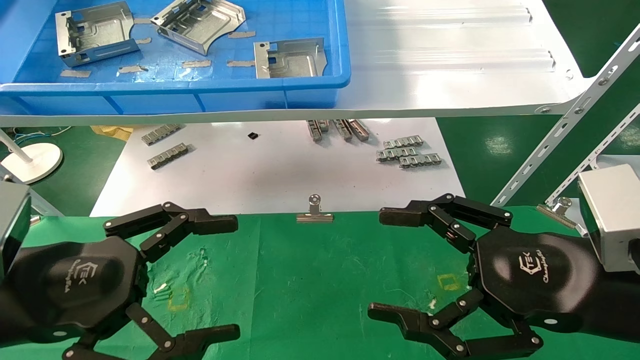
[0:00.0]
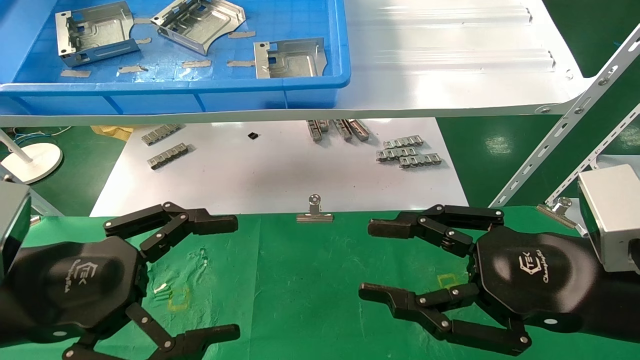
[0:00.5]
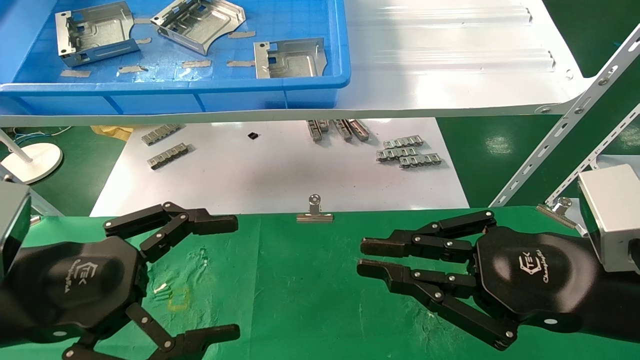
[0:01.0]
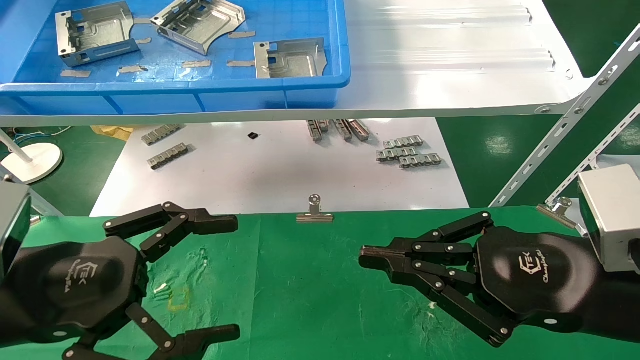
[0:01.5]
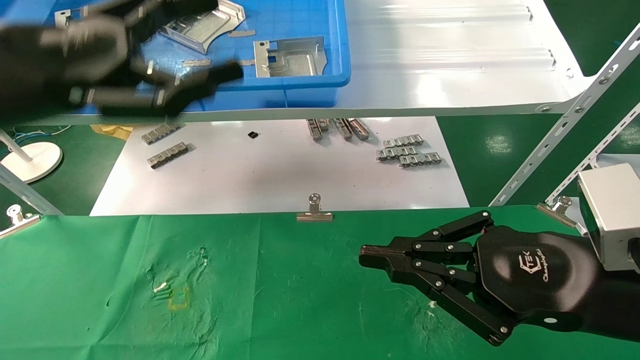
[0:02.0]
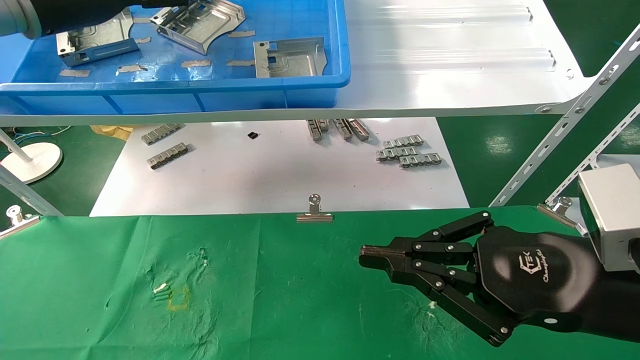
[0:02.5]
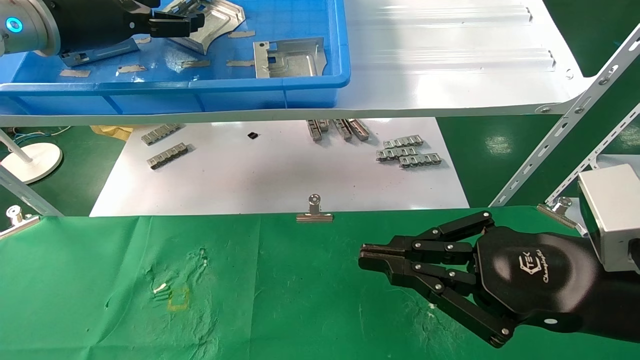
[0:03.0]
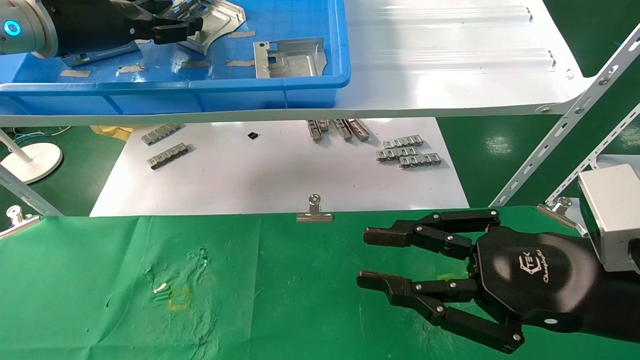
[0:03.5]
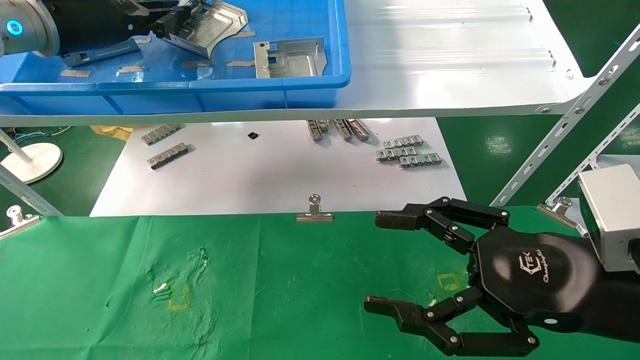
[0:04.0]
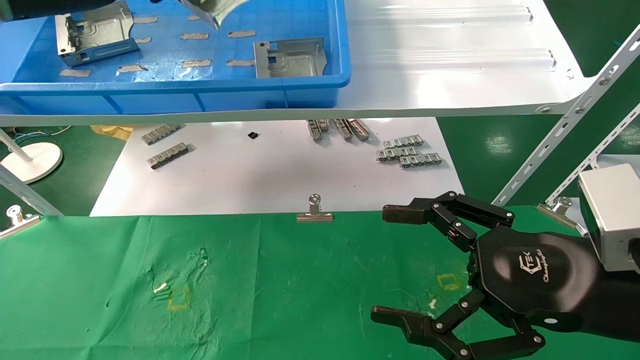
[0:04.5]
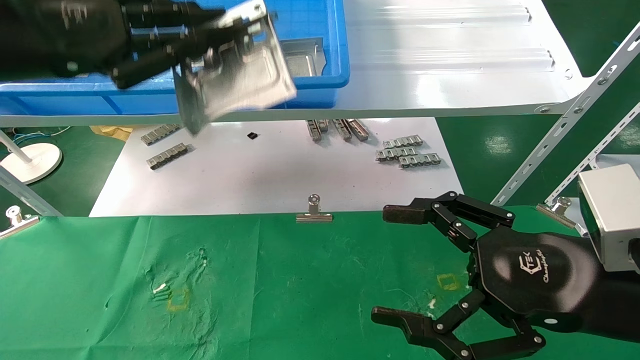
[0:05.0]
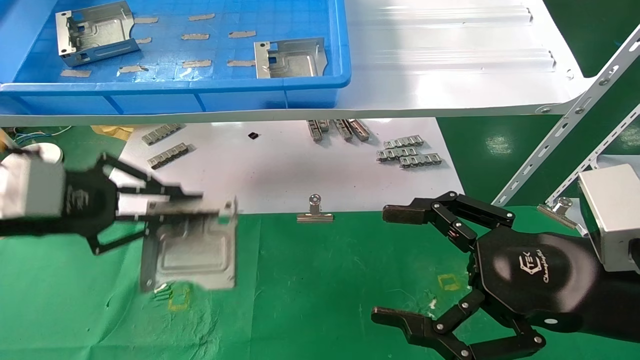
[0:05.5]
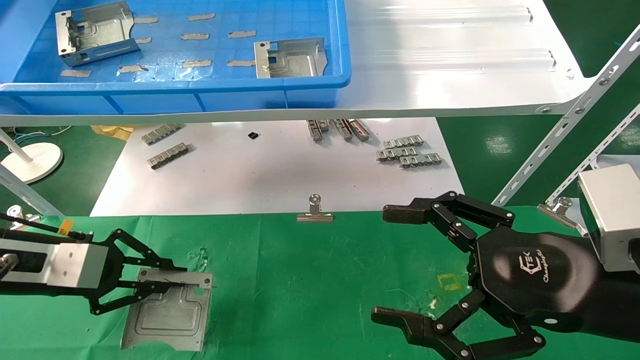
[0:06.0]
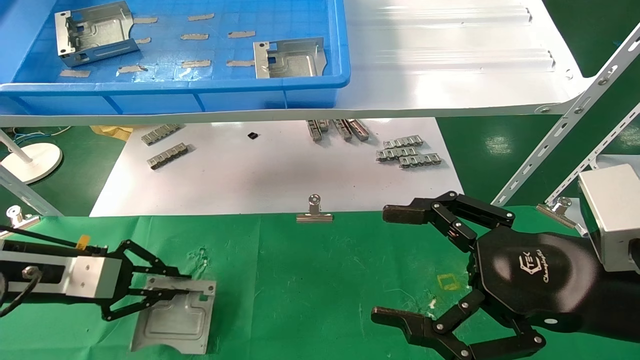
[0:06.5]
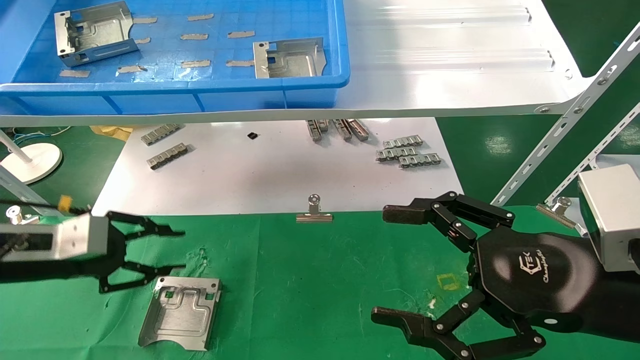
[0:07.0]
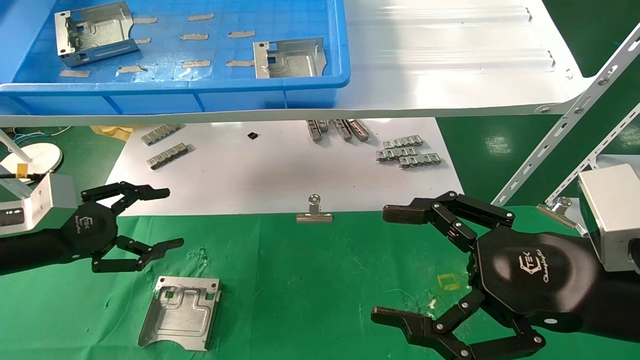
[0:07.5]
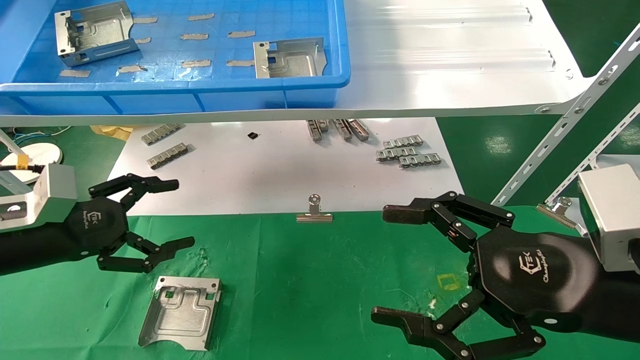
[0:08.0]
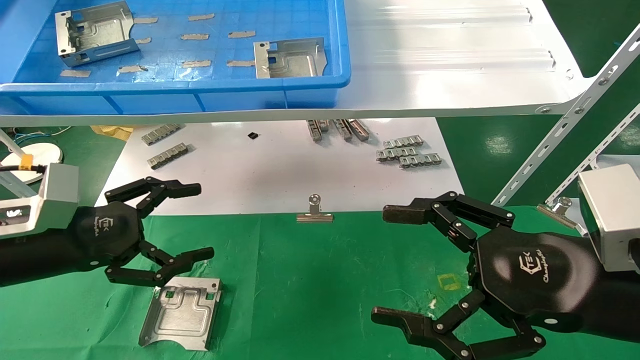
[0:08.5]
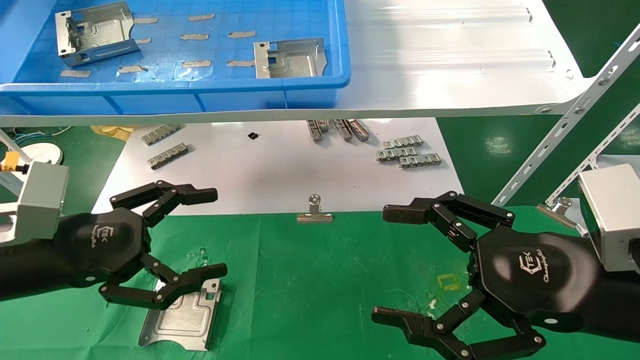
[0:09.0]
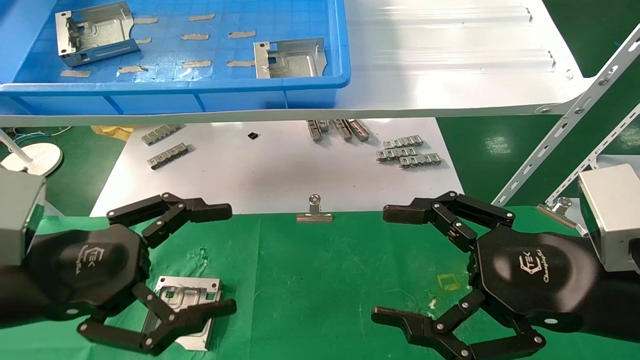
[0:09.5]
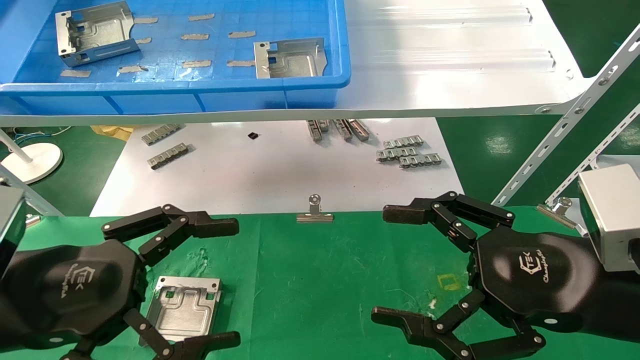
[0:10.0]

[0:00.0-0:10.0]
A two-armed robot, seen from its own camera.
Task of the whole recording: use the mechanical arm to pick up the parts and place them on the table.
Step, 0:01.5 to 0:04.5: Pick up the hard drive bracket from the feeding area.
Step, 0:05.0 to 0:07.0: Place the hard drive bracket into the box.
0:00.0 to 0:02.0: The right gripper closes. The left gripper shifts about 20 cm upward and forward.
0:02.0 to 0:04.0: The right gripper opens up, while the left gripper travels forward and upward by about 15 cm, and closes.
0:04.0 to 0:06.0: The left gripper shifts approximately 25 cm downward and backward.
0:06.0 to 0:08.0: The left gripper opens.
0:08.0 to 0:10.0: The left gripper shifts approximately 15 cm backward and to the right.
